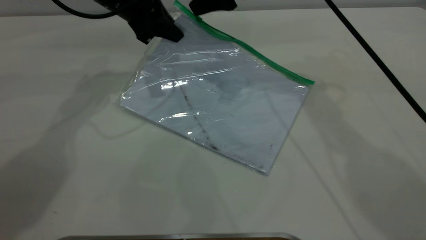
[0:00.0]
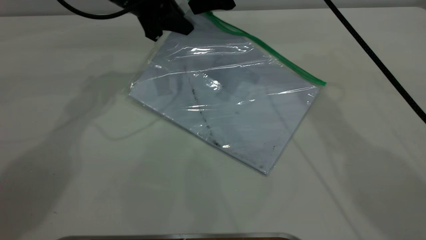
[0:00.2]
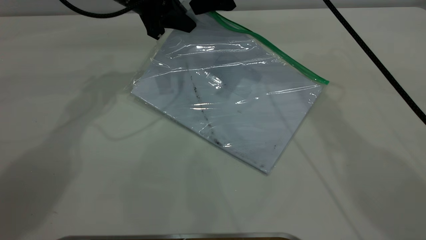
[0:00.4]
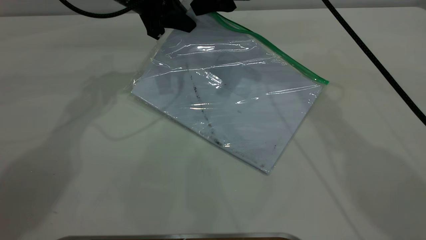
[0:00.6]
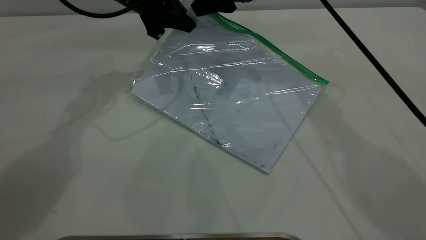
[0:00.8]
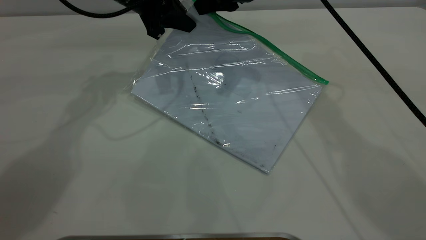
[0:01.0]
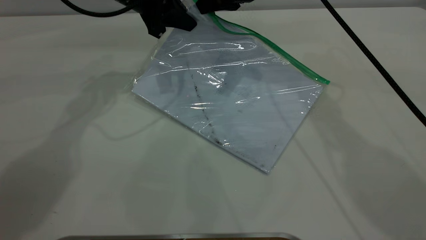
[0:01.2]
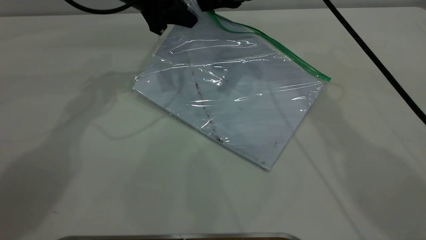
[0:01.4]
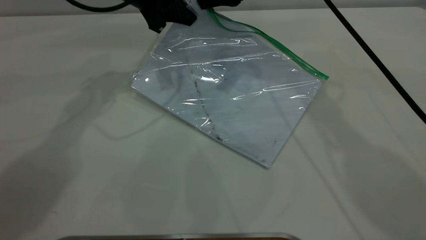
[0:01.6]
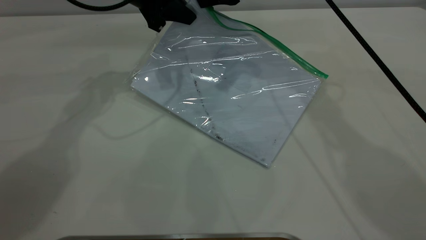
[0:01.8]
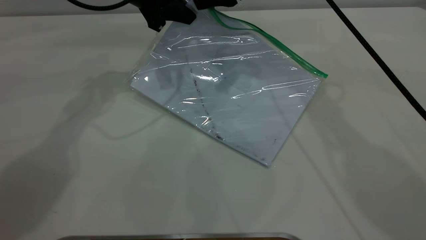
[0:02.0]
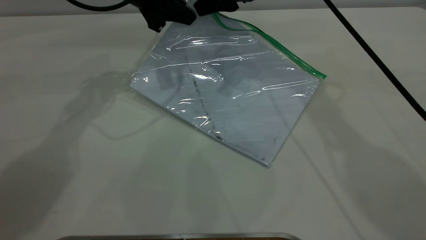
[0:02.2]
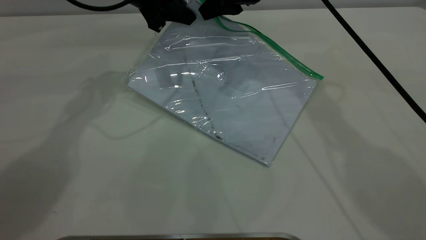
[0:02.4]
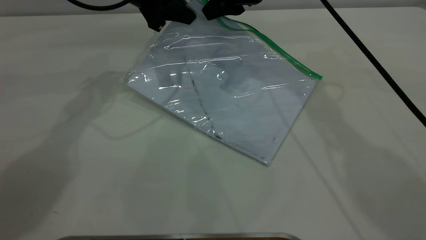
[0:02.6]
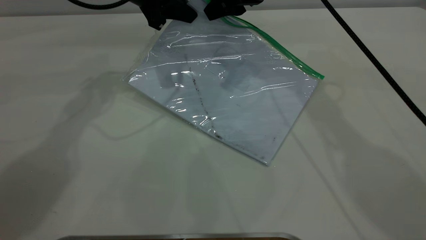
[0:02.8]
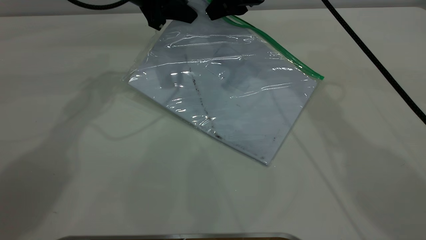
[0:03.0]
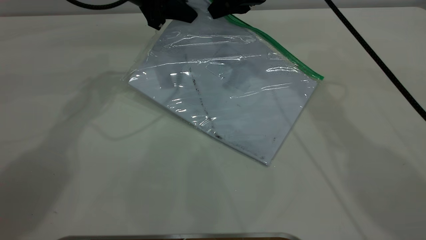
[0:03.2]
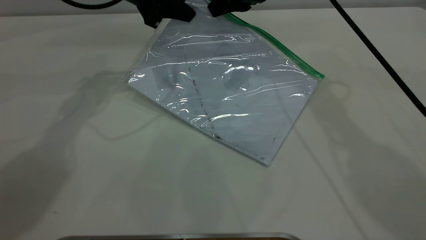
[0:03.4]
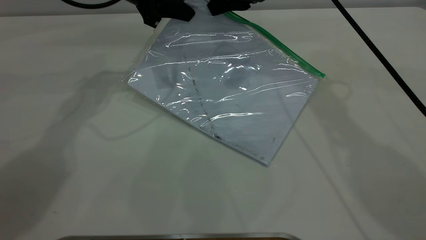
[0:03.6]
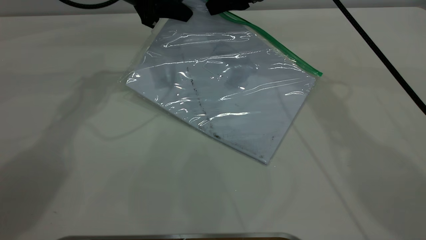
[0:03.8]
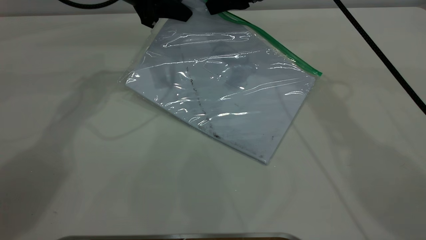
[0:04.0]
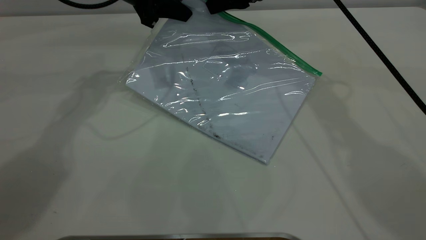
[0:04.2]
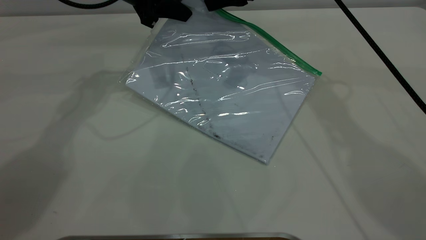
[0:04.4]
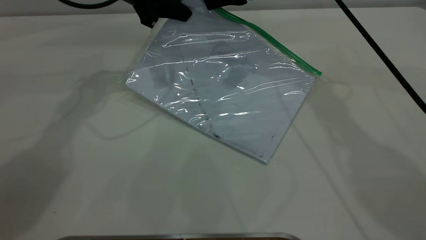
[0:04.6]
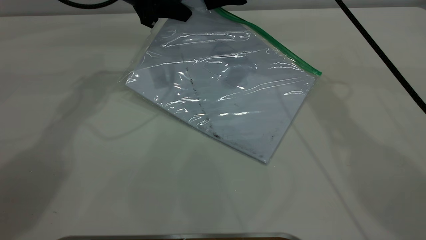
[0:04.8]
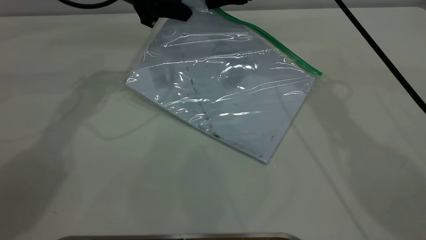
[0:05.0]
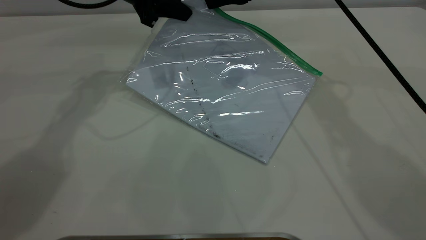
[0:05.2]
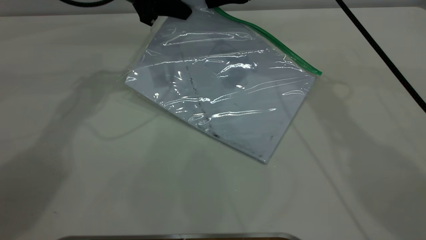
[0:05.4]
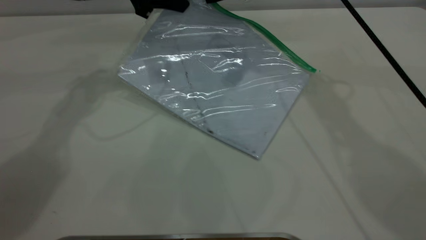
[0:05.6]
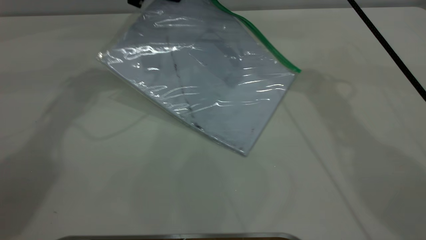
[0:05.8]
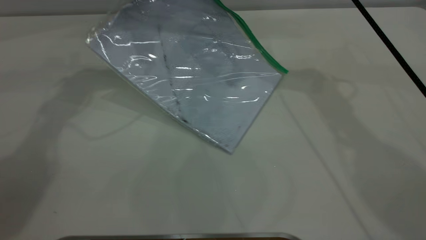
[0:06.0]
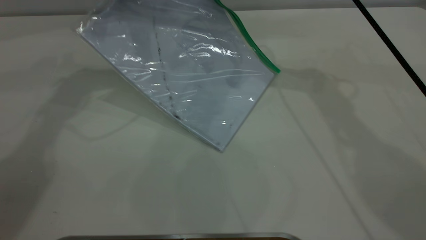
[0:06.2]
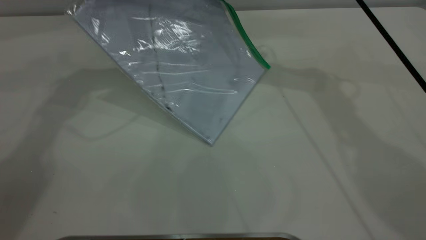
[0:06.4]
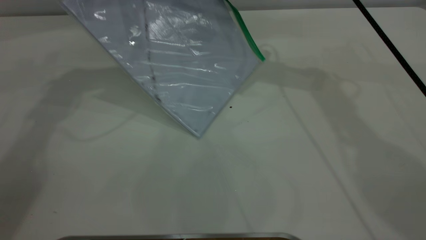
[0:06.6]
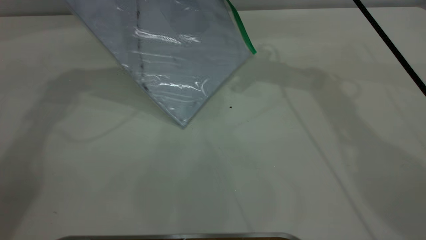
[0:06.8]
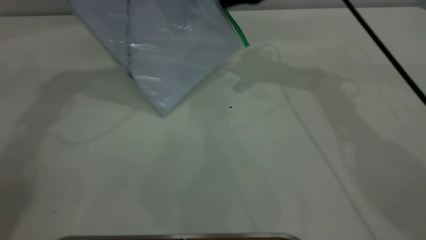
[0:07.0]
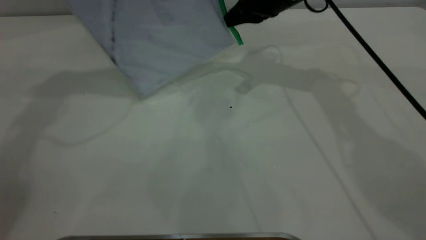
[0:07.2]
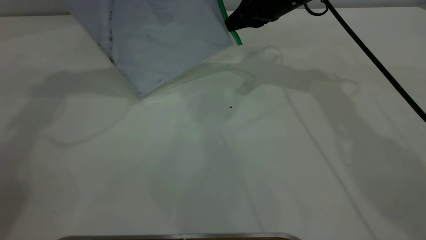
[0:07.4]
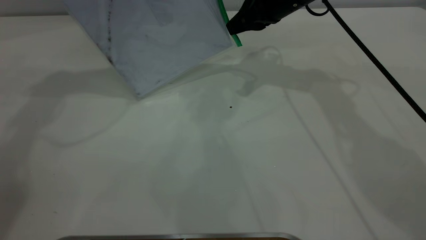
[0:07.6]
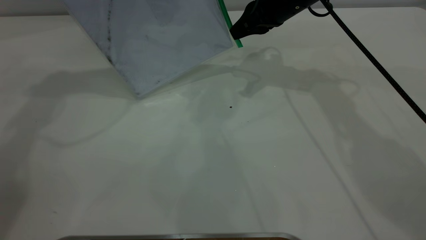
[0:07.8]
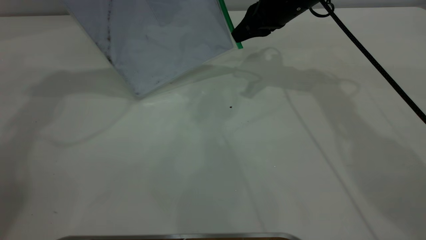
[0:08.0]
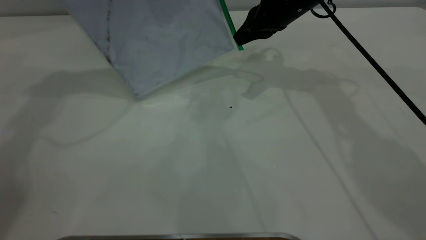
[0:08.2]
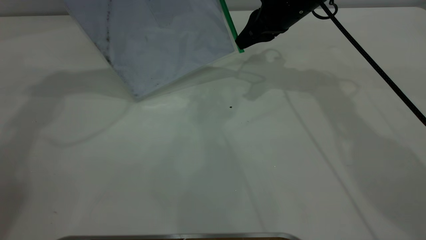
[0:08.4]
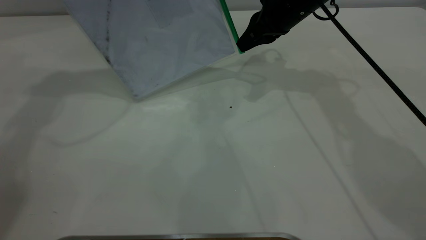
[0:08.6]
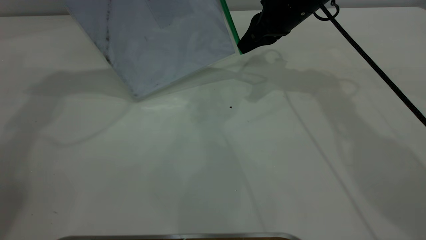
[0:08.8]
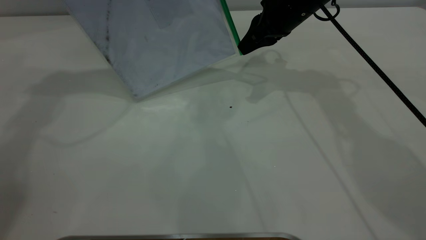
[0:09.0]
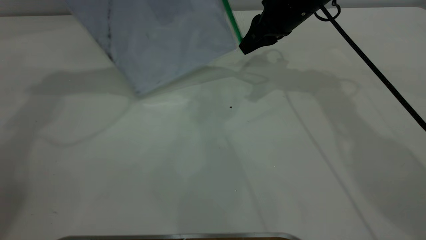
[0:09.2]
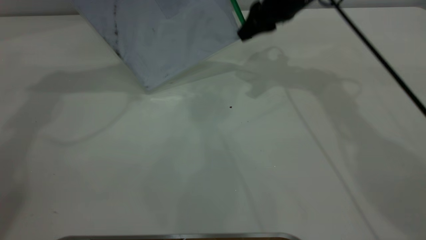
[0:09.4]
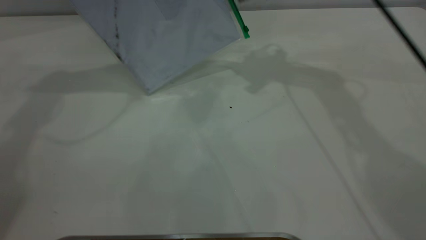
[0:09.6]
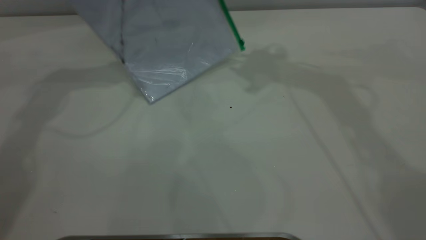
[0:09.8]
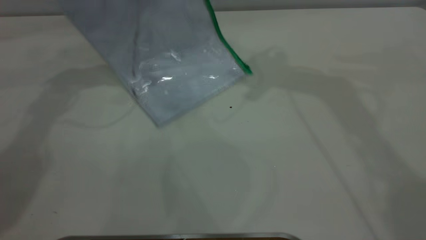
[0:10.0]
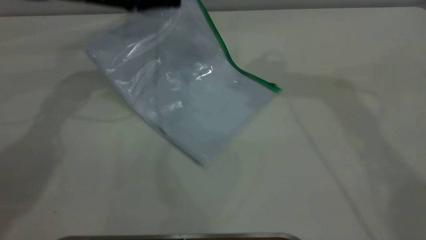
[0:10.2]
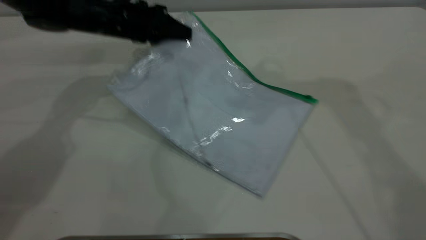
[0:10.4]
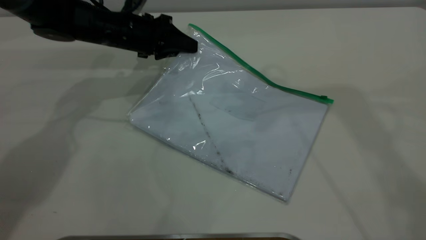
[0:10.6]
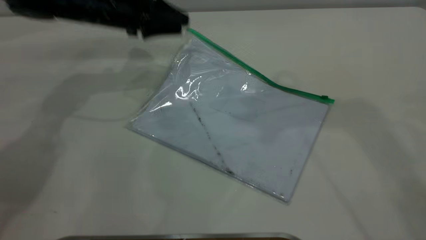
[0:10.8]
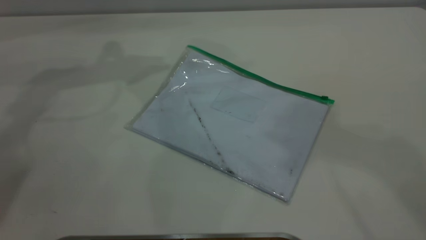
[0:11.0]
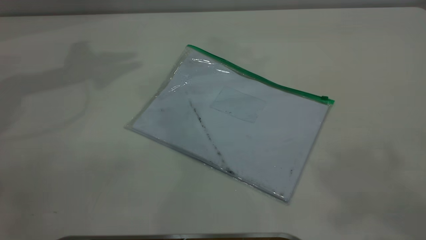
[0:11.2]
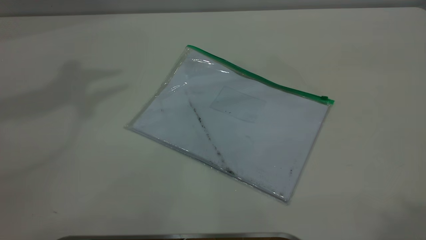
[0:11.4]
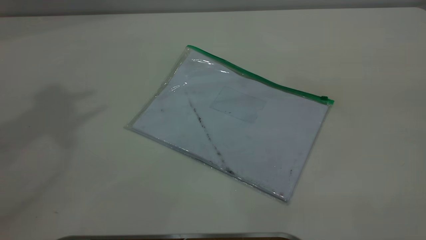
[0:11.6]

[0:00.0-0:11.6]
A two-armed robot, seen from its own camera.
Step, 0:00.0 to 0:09.4: Pulling up the zipper on the transparent plastic bag with the right gripper to close it.
Step, 0:09.6 to 0:10.8: Place the transparent plastic bag.
0:00.0 to 0:01.4: The right gripper closes up.
0:01.4 to 0:02.8: The right gripper opens up.
0:02.8 to 0:04.4: There are only small adjustments of the grippers.
0:04.4 to 0:05.8: The right gripper closes.
0:05.8 to 0:07.2: The right gripper shifts approximately 5 cm downward. Meanwhile the left gripper moves upward, some 10 cm.
0:07.2 to 0:08.8: There are only small adjustments of the grippers.
0:08.8 to 0:10.2: The left gripper is displaced downward by approximately 20 cm; the right gripper moves upward, roughly 20 cm, and opens.
0:10.2 to 0:11.6: The left gripper travels upward and backward by approximately 40 cm, and opens, while the right gripper heads backward and to the right, covering approximately 40 cm.
